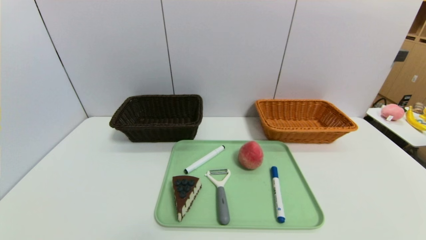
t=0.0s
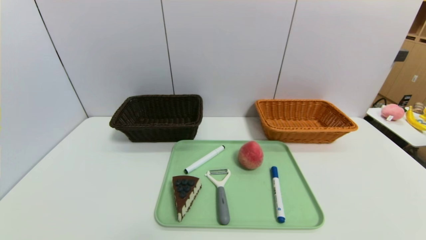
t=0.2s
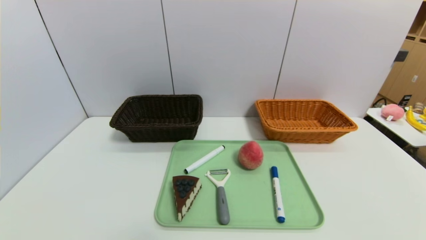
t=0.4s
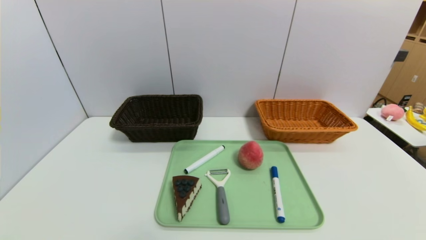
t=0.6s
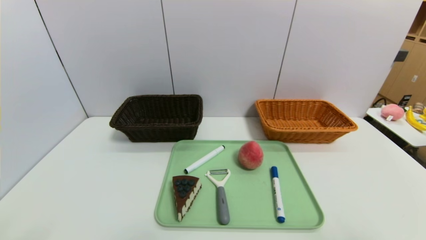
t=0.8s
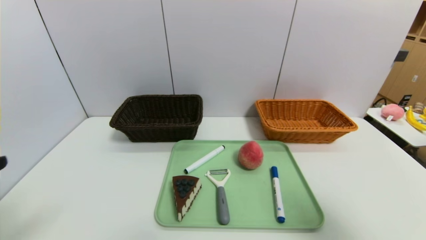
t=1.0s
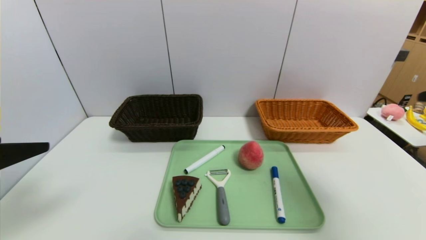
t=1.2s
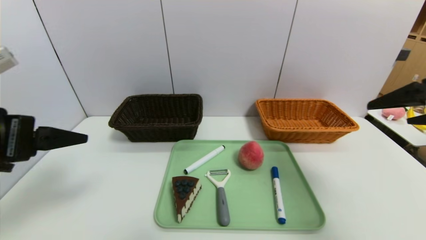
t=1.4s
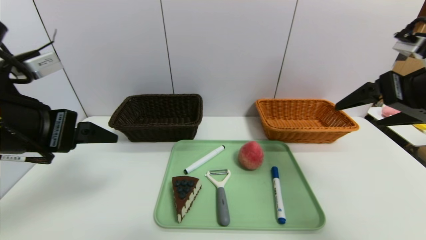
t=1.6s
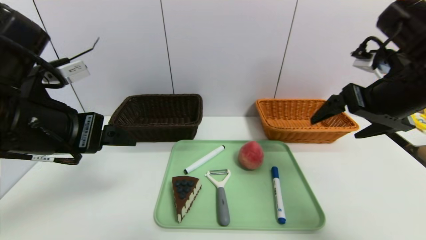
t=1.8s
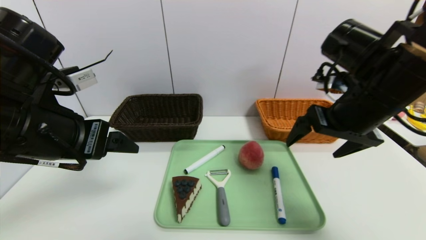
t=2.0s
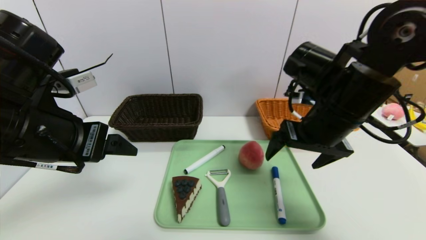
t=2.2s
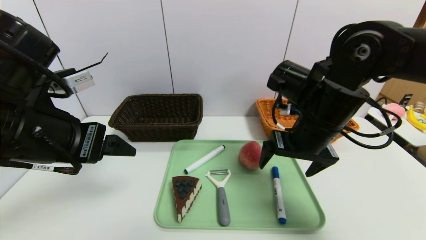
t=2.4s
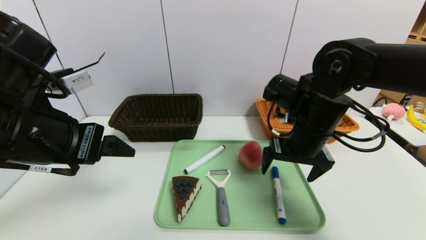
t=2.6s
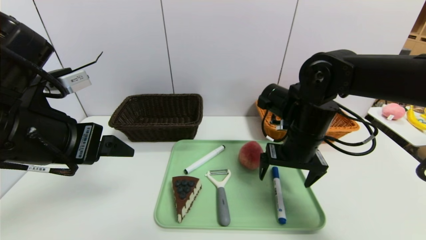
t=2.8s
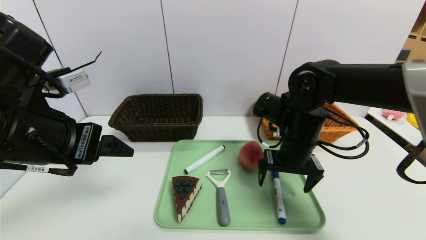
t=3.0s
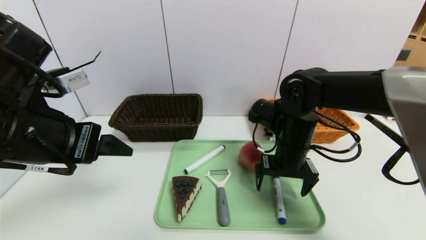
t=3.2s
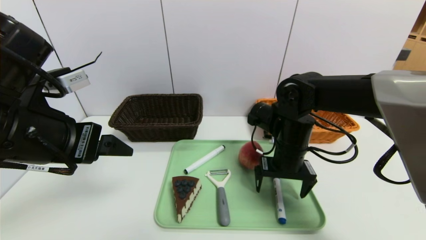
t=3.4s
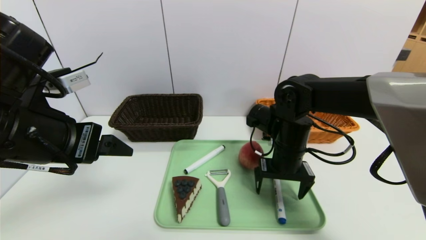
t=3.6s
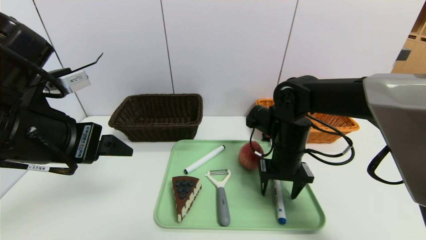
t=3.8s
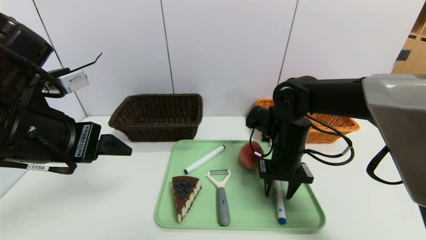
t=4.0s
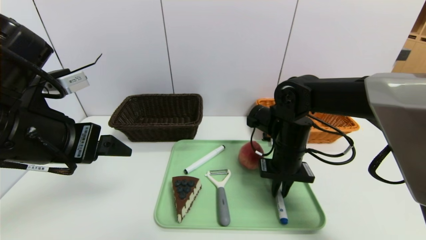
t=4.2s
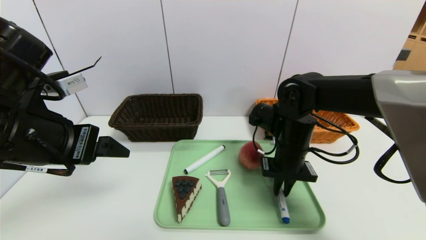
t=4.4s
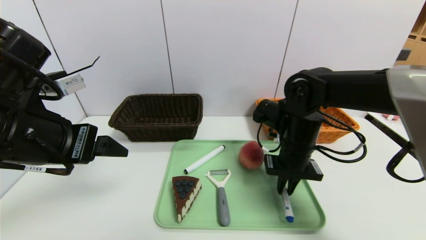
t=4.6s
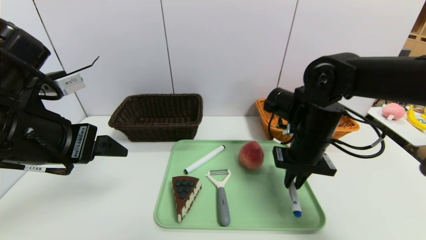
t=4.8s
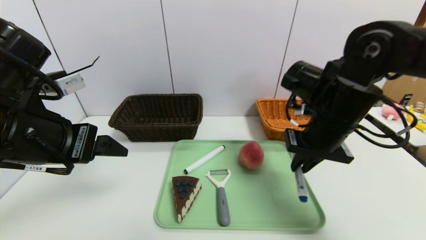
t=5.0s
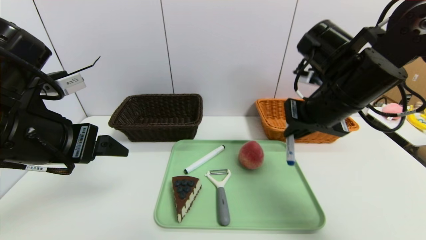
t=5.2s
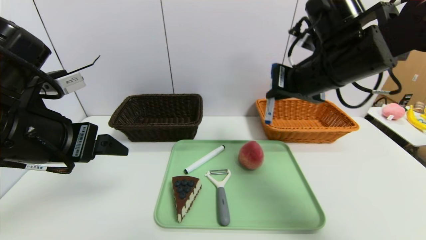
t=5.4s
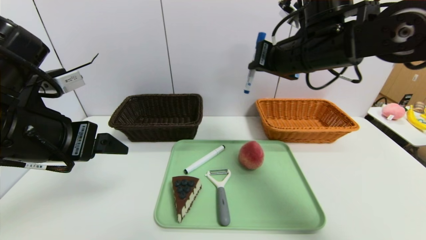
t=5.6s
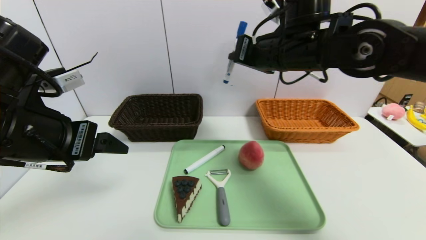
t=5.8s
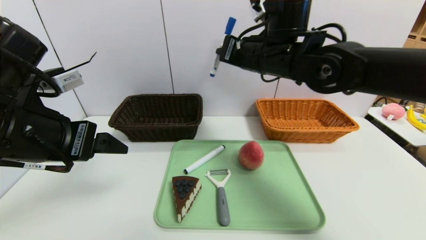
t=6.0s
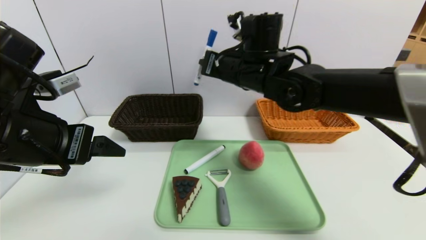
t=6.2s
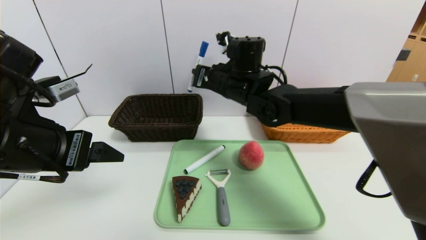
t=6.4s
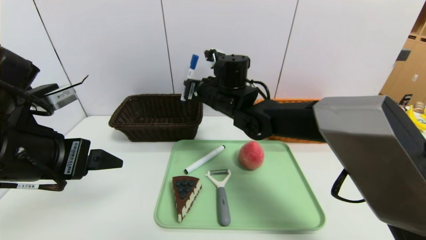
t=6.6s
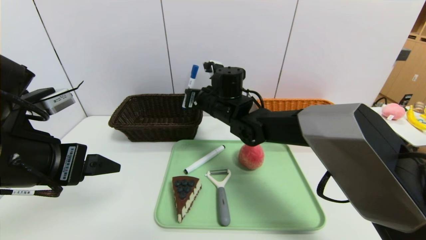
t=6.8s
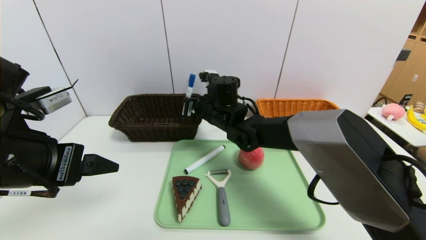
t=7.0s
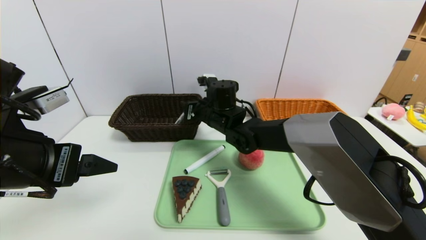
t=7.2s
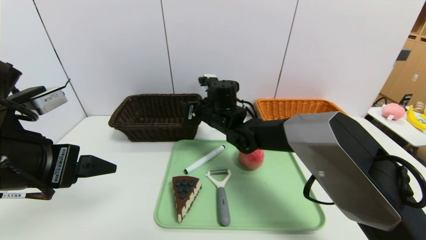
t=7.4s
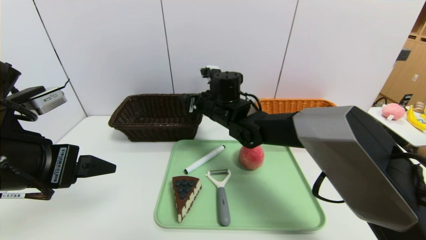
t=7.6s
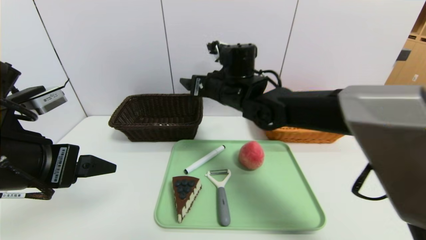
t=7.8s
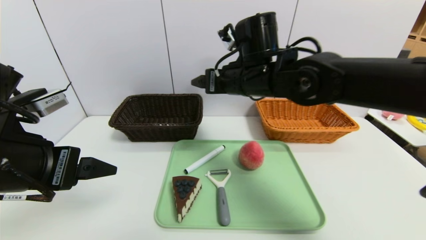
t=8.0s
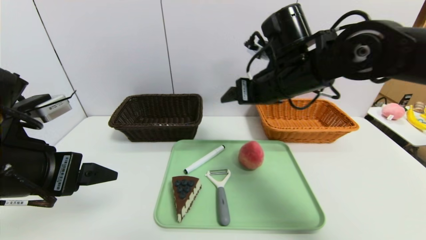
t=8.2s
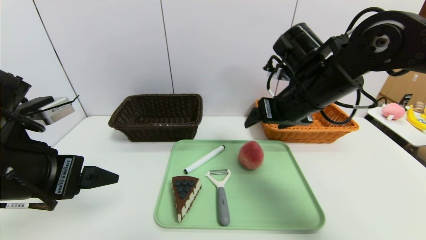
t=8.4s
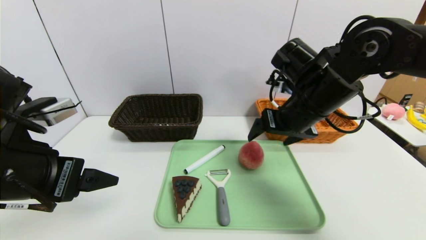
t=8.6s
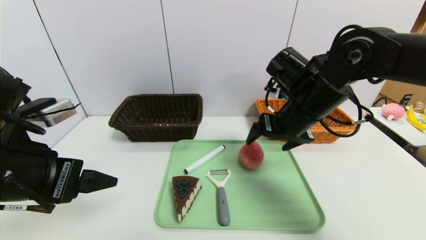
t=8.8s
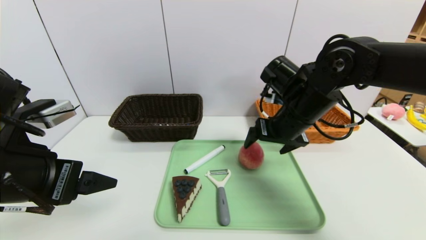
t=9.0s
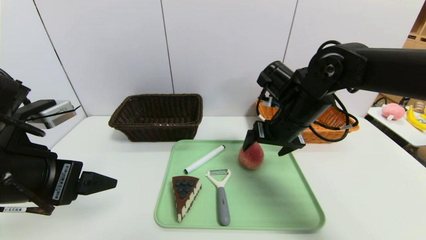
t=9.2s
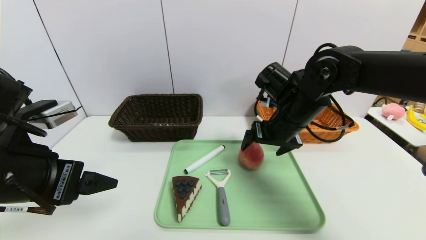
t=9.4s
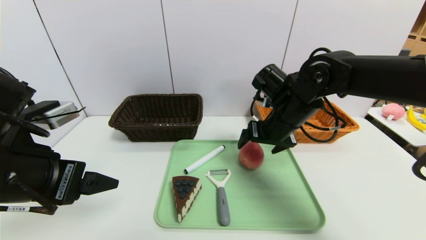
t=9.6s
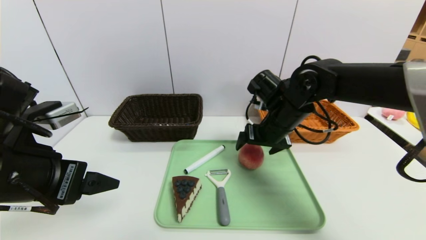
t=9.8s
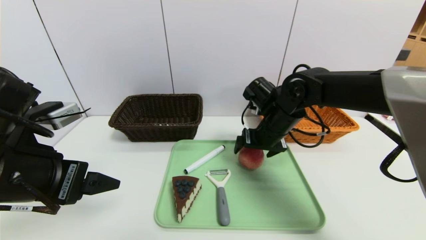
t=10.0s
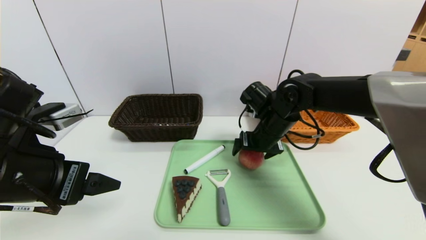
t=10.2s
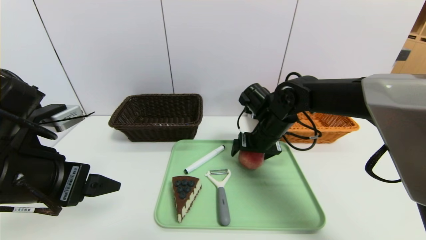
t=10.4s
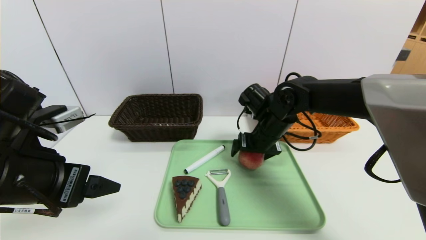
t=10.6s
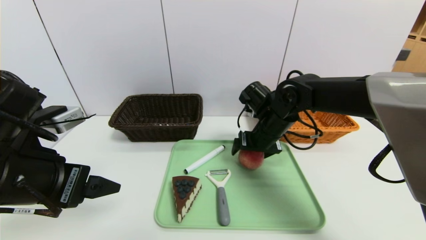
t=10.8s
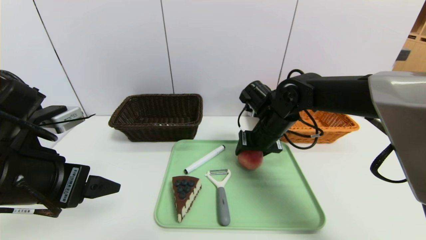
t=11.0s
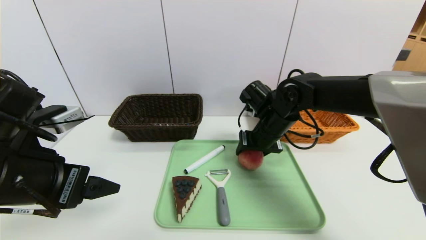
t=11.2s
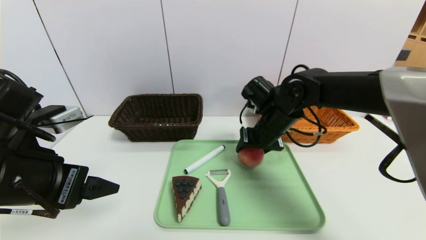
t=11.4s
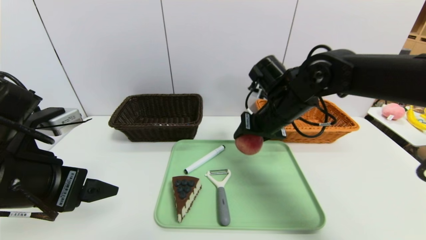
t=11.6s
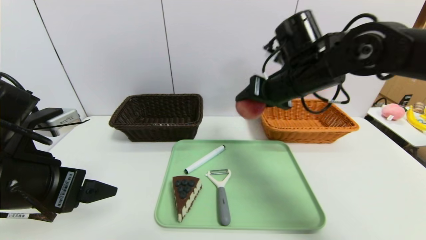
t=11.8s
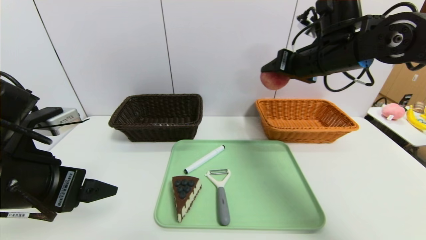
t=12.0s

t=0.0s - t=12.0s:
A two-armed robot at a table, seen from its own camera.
Task of the whole recording: place the food in the right basket with the right gripper, and place the non food items in the left basket with the left gripper.
Step, t=0.0s - t=7.6s: Grasp the blue marker and put it in the left basket.
t=0.0s - t=1.6s: The two grippers go approximately 30 cm upward and forward.
t=1.6s - t=3.0s: The right gripper goes approximately 20 cm downward, to the left and forward.
t=3.0s - t=4.4s: The right gripper closes.
t=4.4s - t=6.0s: The right gripper travels upward and to the left by roughly 15 cm.
t=6.0s - t=7.6s: The right gripper travels downward and to the left by approximately 15 cm, and opens up.
t=7.6s - t=9.0s: The right gripper is displaced to the right and backward by about 15 cm.
t=9.0s - t=10.4s: The right gripper heads downward, covering approximately 5 cm.
t=10.4s - t=12.0s: The right gripper travels upward and to the right by about 20 cm, and closes.

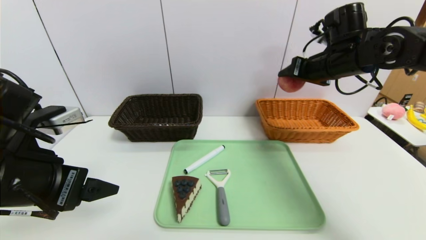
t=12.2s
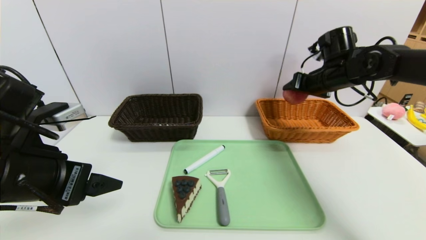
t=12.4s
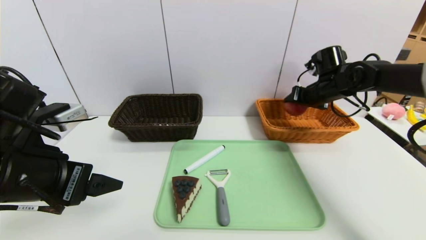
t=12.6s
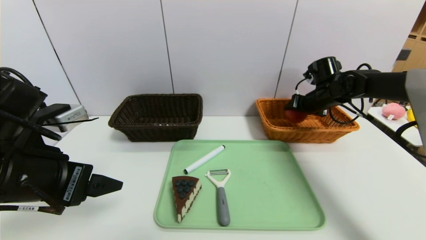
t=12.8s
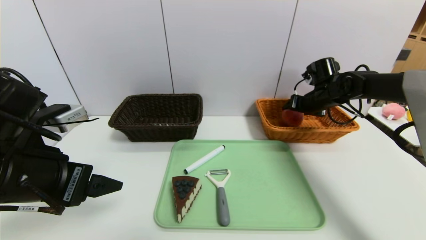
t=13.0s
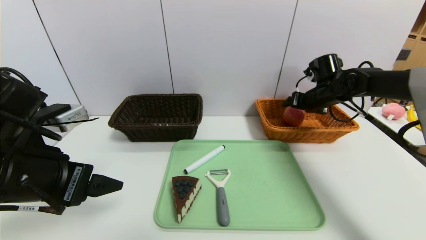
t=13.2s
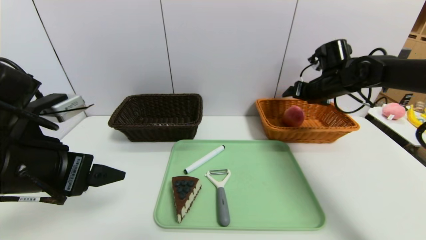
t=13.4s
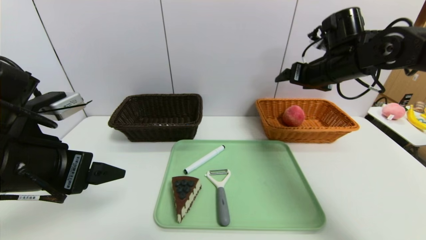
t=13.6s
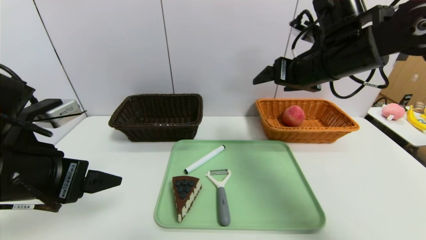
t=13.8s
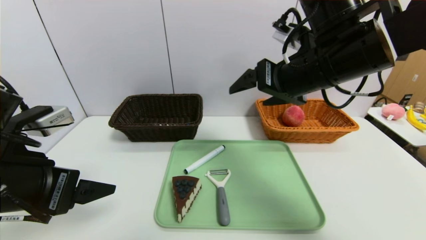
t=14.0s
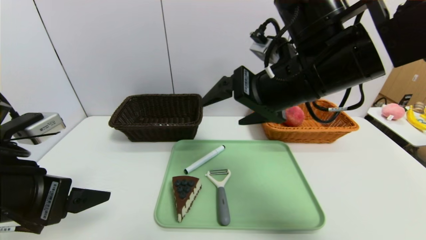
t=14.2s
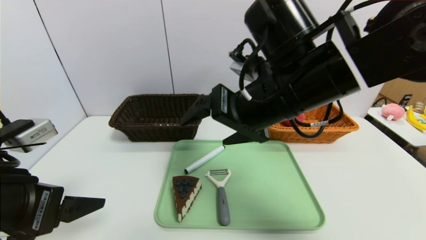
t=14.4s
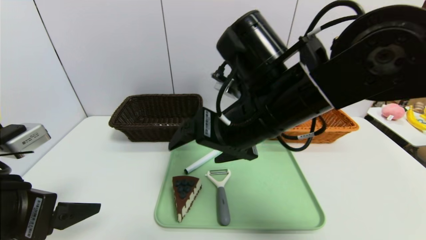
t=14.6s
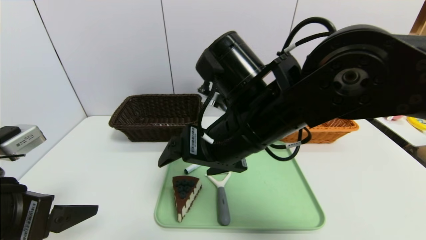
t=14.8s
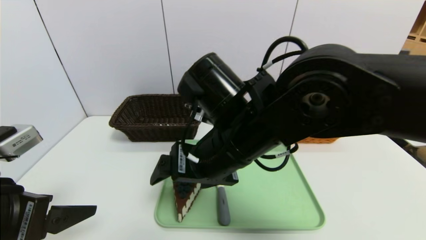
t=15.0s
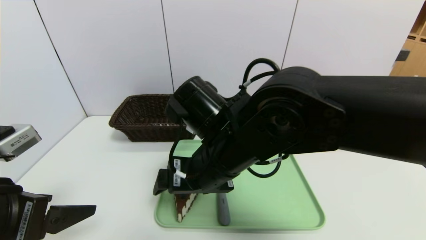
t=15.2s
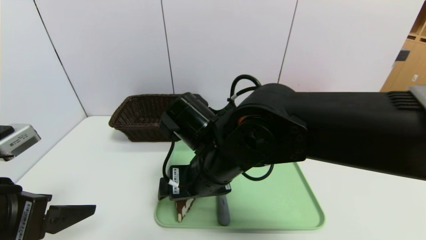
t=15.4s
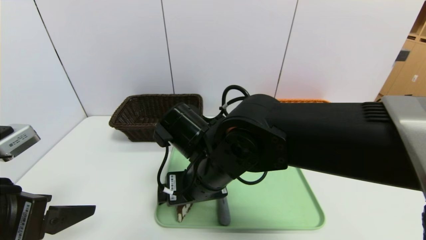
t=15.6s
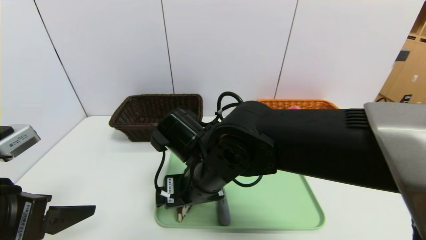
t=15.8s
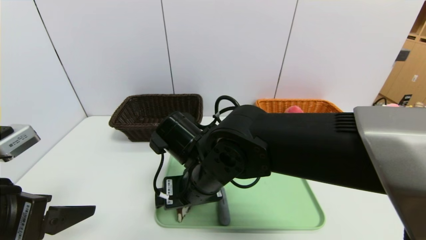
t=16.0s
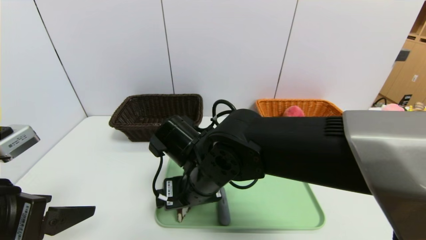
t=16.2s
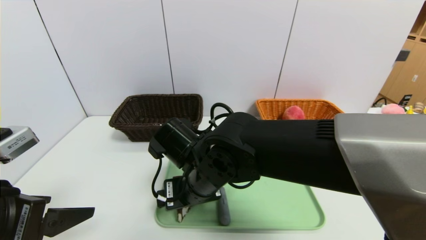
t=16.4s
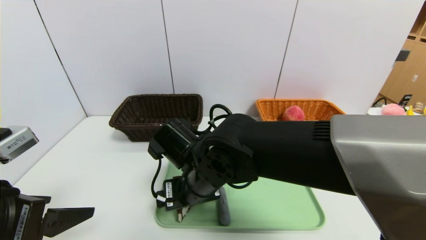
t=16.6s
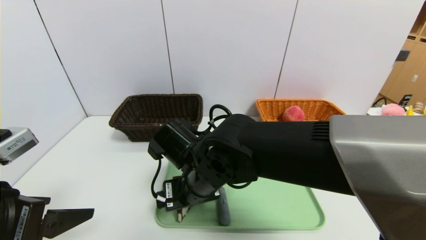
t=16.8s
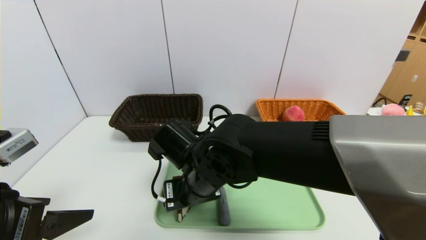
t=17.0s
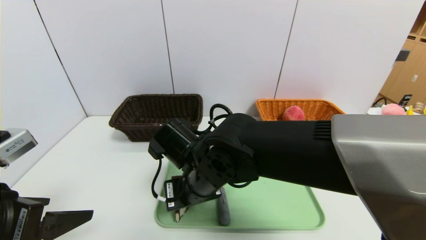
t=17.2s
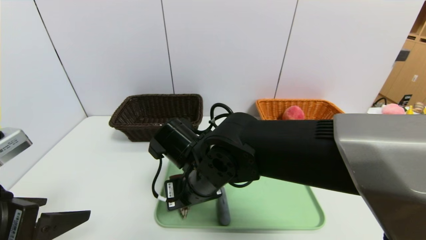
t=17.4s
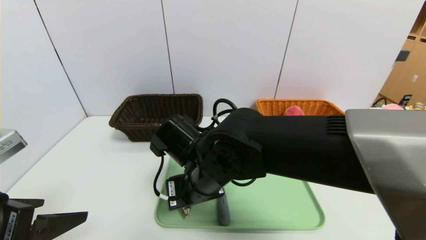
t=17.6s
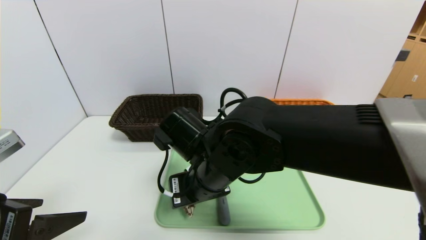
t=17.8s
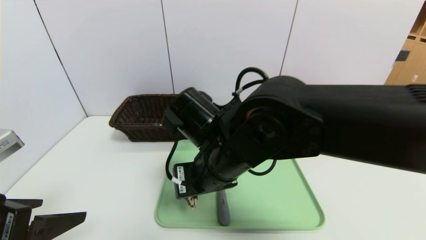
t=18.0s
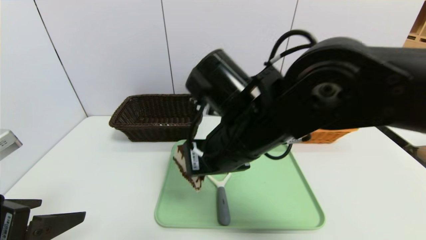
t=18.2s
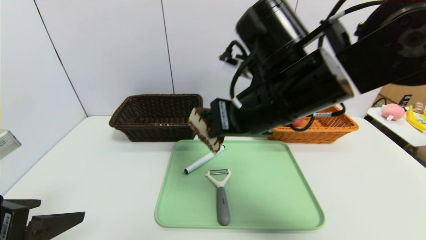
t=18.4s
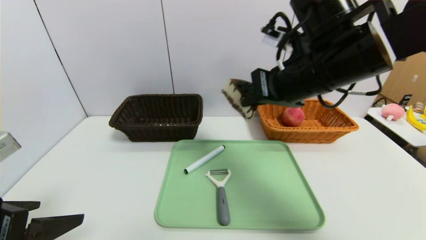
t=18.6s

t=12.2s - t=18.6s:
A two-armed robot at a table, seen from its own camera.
Task of the whole recording: place the food in the right basket with the right gripper, and place the non food items in the left basket with the left gripper.
t=12.2s - t=13.8s: The right gripper travels backward and to the left by some 10 cm, and opens.
t=13.8s - t=15.4s: The right gripper is displaced to the left, downward and backward by some 25 cm. The left gripper ends up roughly 5 cm from where it was.
t=17.0s - t=18.6s: The right gripper travels to the right and upward by approximately 25 cm, and closes.
